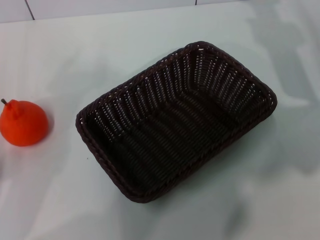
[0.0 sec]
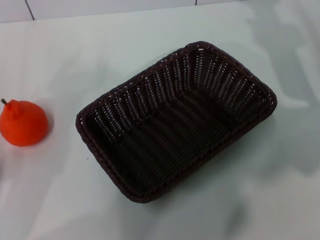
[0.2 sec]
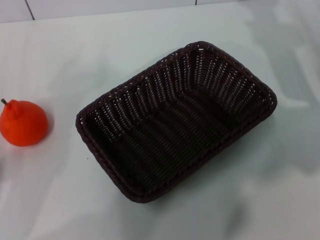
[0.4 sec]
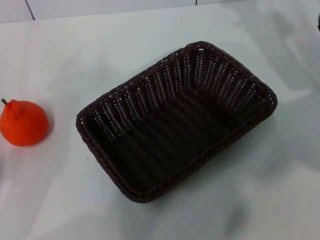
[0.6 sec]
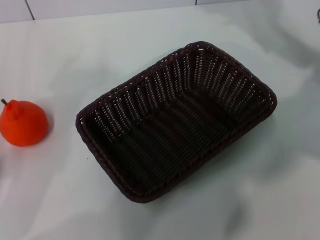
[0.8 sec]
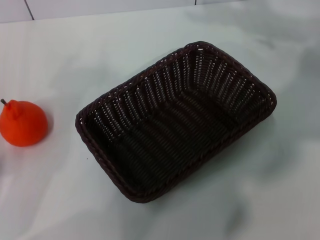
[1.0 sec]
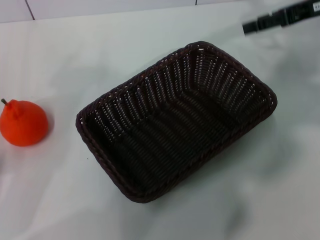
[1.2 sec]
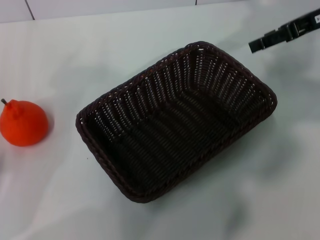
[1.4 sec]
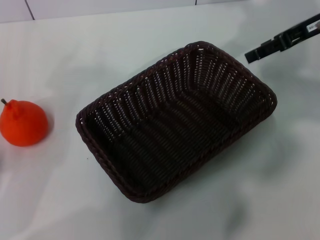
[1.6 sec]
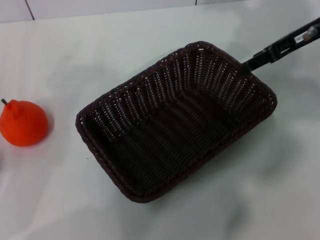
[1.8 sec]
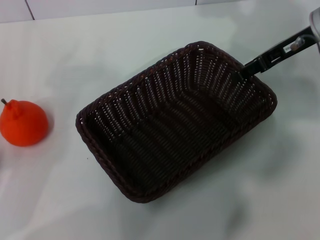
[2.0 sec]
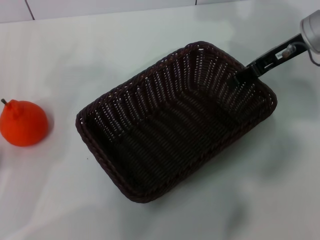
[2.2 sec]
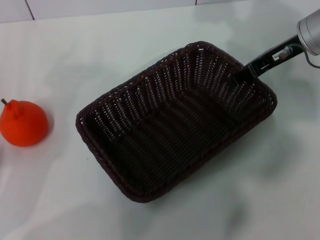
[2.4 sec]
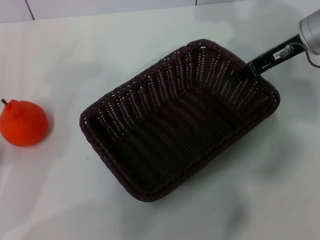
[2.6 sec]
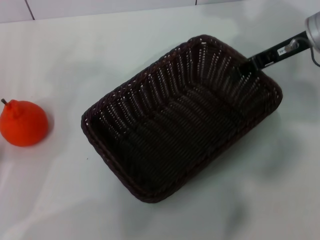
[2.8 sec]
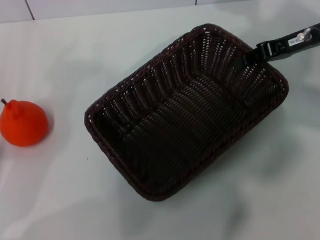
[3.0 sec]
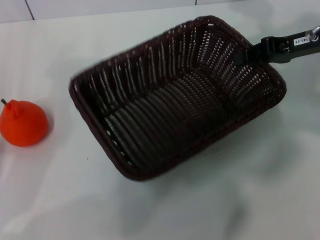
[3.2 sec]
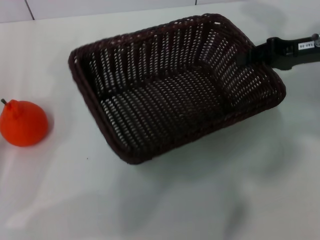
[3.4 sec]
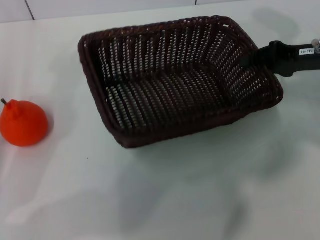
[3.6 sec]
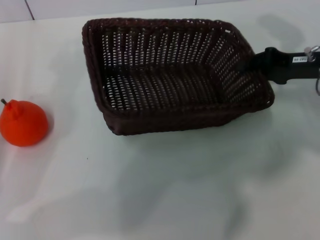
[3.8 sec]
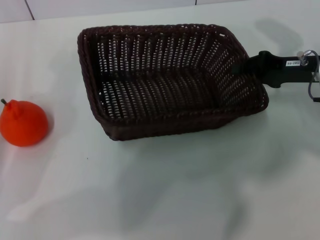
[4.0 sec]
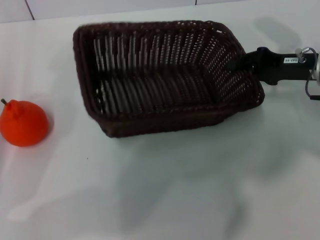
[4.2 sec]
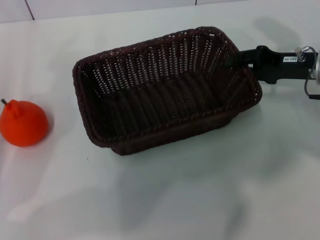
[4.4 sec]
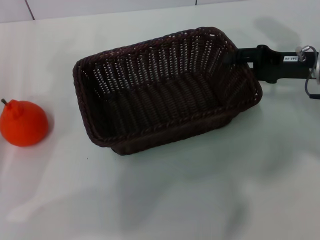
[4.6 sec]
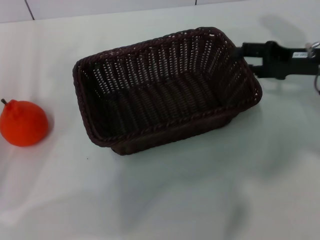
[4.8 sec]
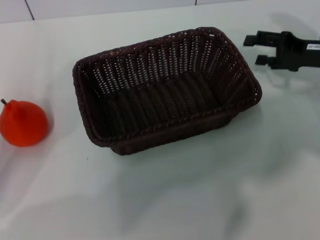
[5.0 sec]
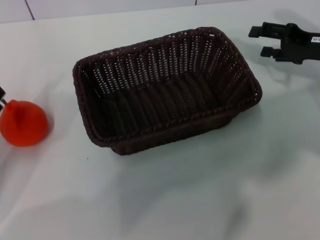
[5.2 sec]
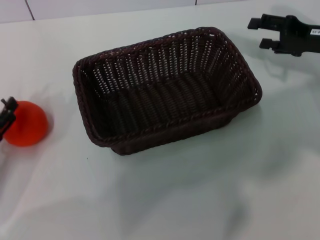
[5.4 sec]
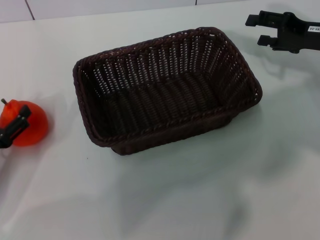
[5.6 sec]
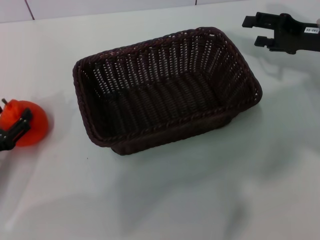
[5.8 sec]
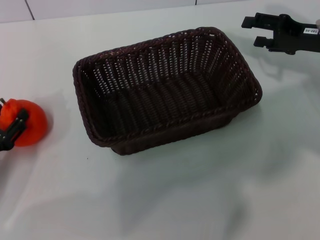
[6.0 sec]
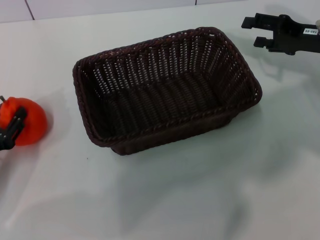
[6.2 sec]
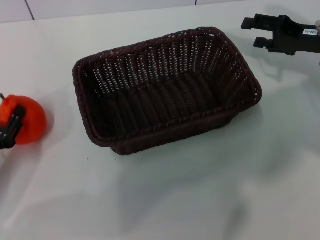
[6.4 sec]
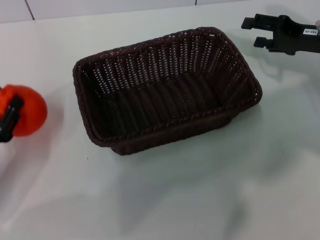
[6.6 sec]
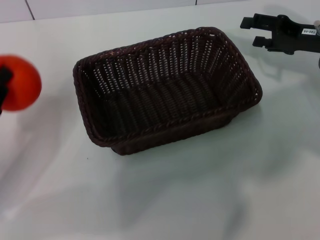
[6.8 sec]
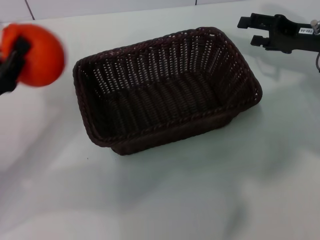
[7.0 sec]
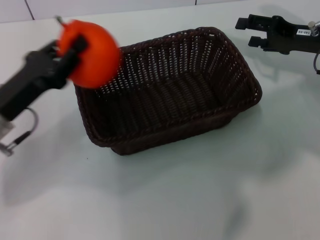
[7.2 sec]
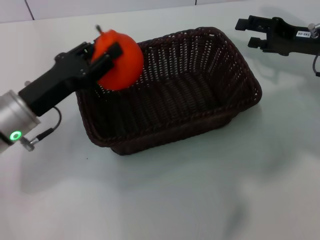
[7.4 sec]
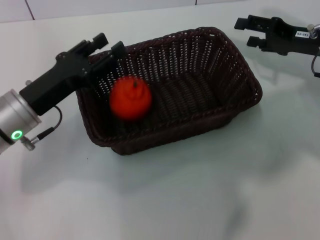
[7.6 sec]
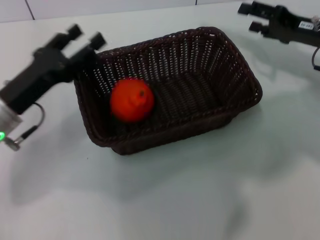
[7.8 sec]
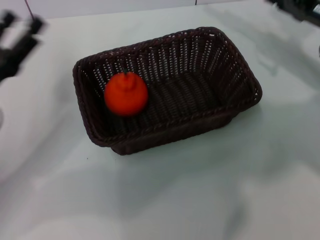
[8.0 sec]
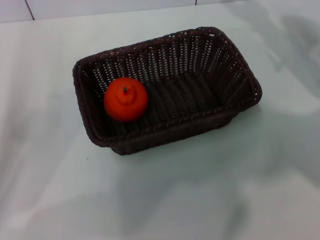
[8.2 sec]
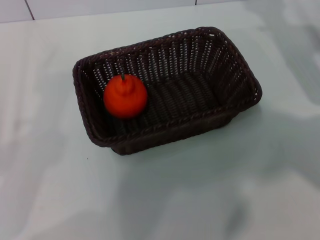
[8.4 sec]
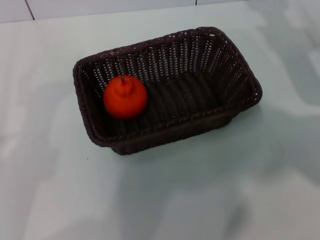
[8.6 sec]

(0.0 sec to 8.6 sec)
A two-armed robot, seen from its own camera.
Task of the whole recording: the right gripper pick up the black basket and place it horizontally in the middle of the table, the left gripper pick up the orange and place it into the black basket.
Step, 0.0 sec - 3.0 sec: Pick up the dark basket with the right gripper.
Step, 3.2 sec - 5.0 sec: Place the dark basket in the center of view with the right gripper.
Step, 5.2 sec - 6.6 sec: Pick up the orange with the left gripper.
Step, 6.8 sec - 7.6 sec: Place the orange into the dark basket with the left gripper.
0.0 sec - 1.4 sec: The right gripper heads upward, covering some 10 cm.
1.4 sec - 2.8 sec: The right gripper shifts by approximately 5 cm, and closes up.
2.8 sec - 4.4 sec: The right gripper heads downward, covering about 5 cm.
4.4 sec - 5.8 sec: The left gripper heads downward, covering some 5 cm, and opens its fingers; the right gripper opens up.
5.8 sec - 7.2 sec: The left gripper moves to the right, upward and forward, about 10 cm, and closes its fingers.
7.2 sec - 8.6 sec: The left gripper is displaced backward and to the left by about 15 cm, and opens.
